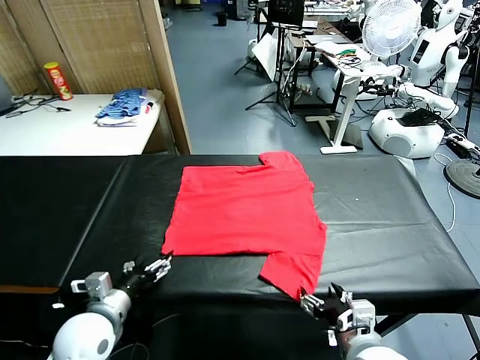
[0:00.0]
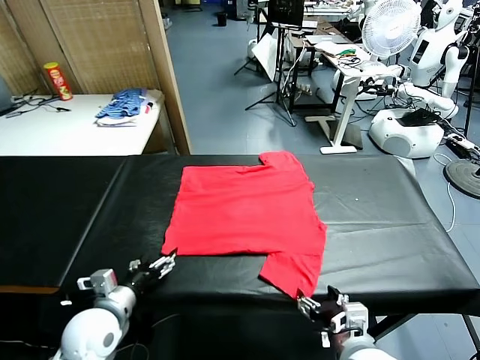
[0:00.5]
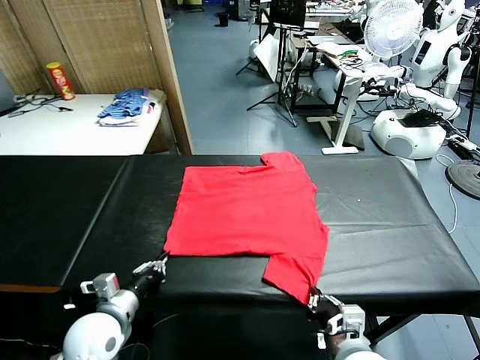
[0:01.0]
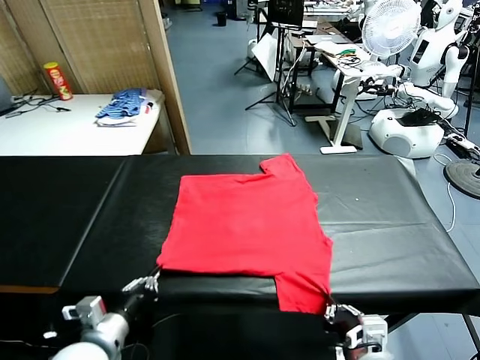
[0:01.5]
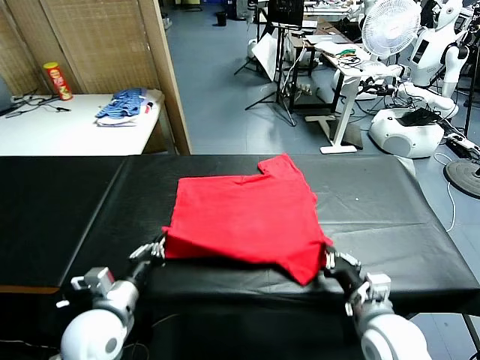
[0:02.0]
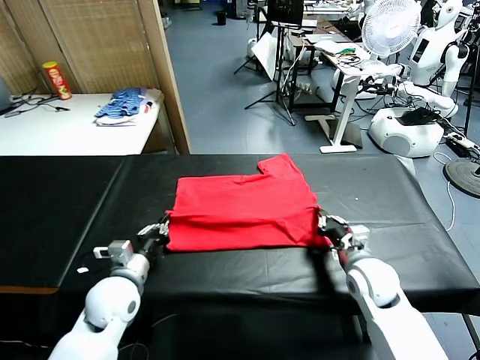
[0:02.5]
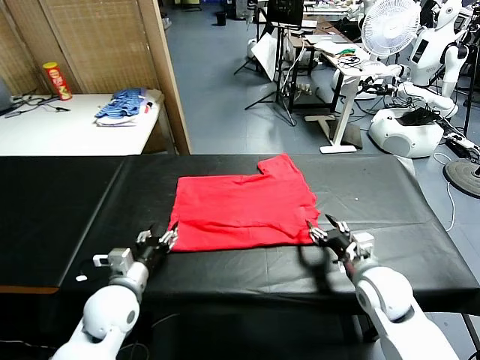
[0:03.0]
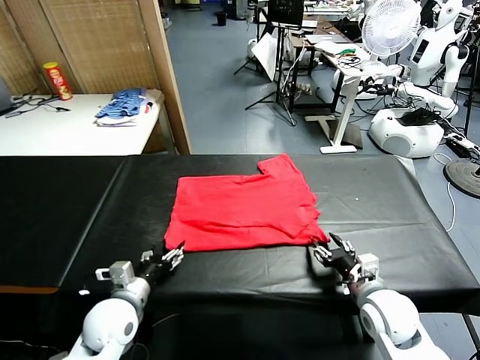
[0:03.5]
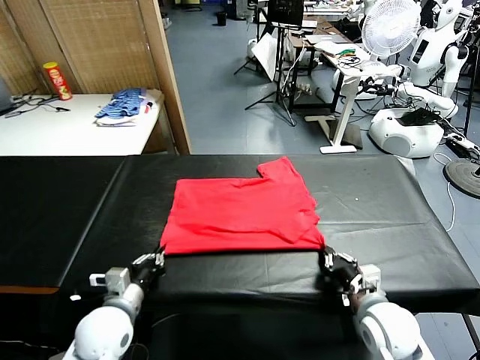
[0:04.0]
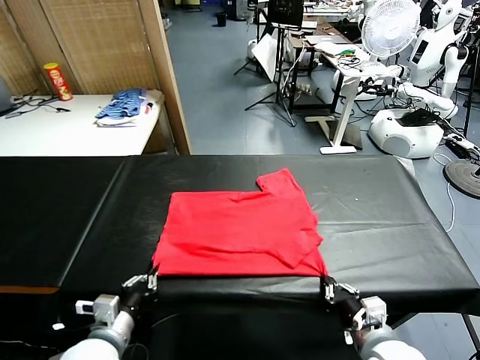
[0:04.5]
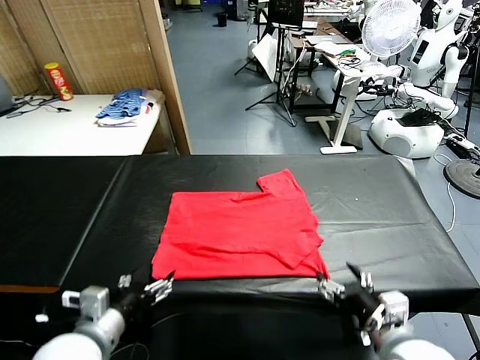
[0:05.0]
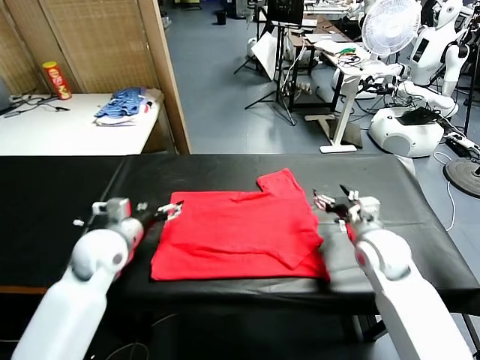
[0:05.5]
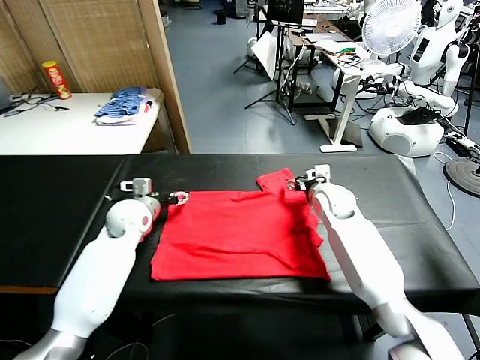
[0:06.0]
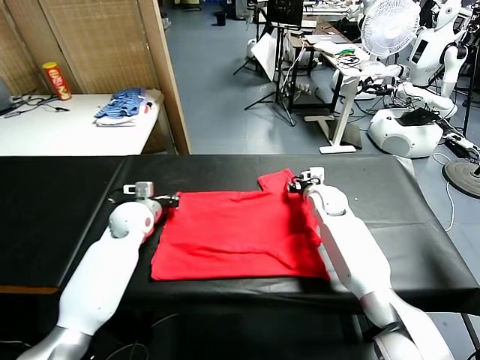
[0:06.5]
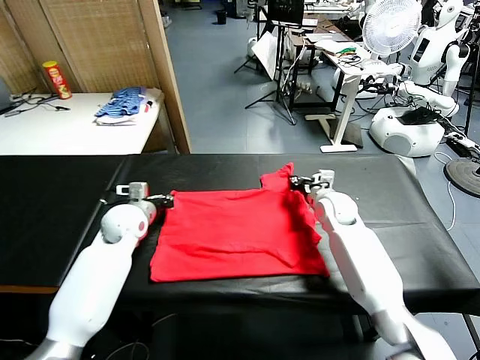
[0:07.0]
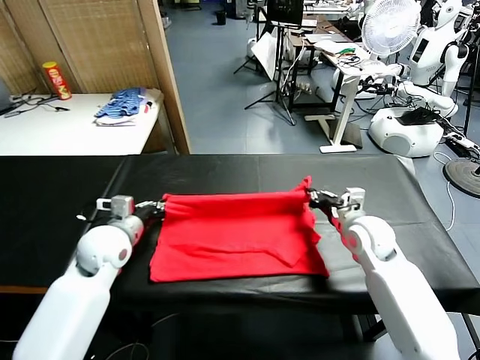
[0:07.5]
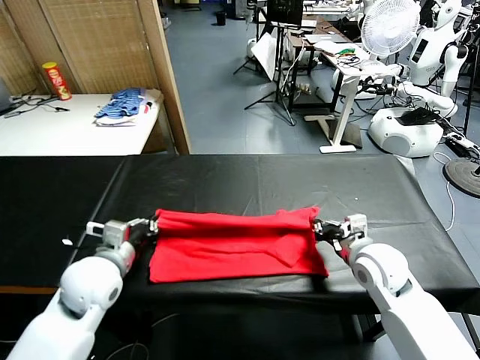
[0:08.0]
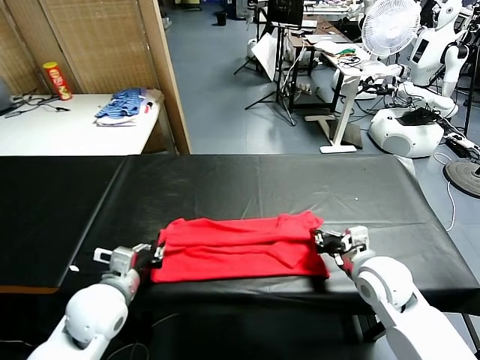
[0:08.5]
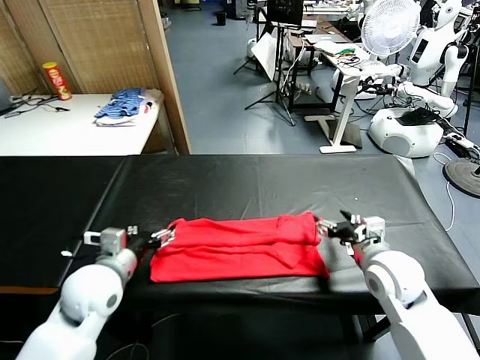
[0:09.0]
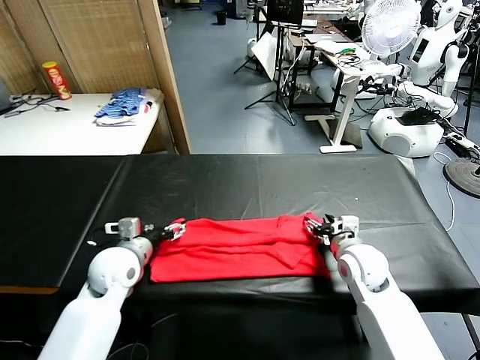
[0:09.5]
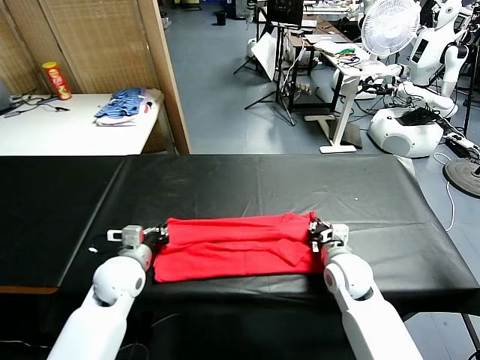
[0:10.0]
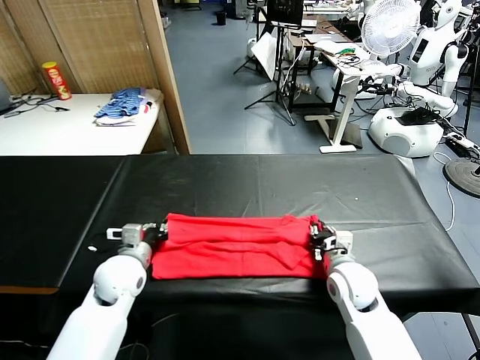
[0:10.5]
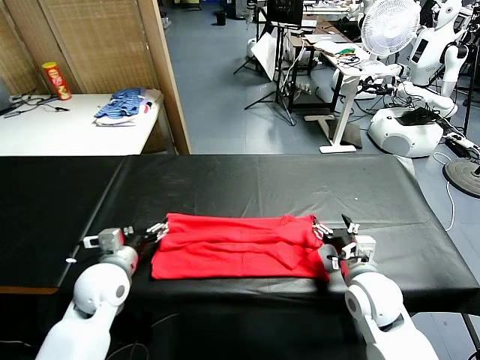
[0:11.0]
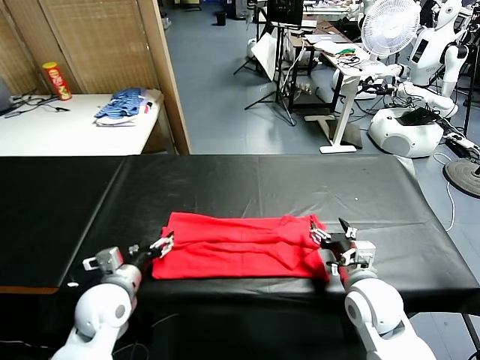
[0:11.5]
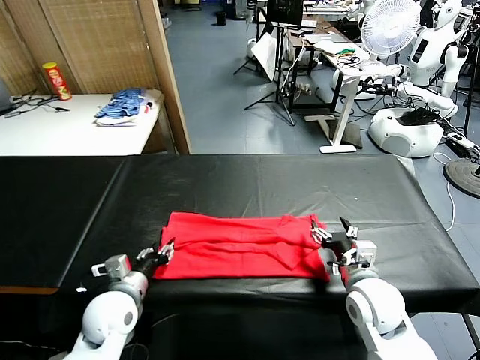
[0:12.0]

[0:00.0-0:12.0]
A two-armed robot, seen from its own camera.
Task of the whole recording: fold and organize the clothes.
Step, 0:00.0 to 0:01.5: use both grippers simultaneously to clamp the lower edge of the clothing fabric.
Step, 0:02.0 to 0:02.5: use both grippers to drag the lower edge of the fabric forward and fold it over the upper edge.
Step, 0:03.5 to 0:04.5: Drag the clothes downward with both gripper.
Step, 0:05.0 to 0:07.0: use both grippers simultaneously to clamp the upper edge of the clothing fabric.
Step, 0:07.5 to 0:08.5: use both grippers to drag the upper edge of the fabric backward and fold it over the lower edge.
0:02.0 to 0:04.0: The left gripper opens, then closes again. The right gripper is displaced backward by roughly 10 cm, and opens and closes again.
0:04.0 to 0:06.0: The two grippers go roughly 30 cm forward. The left gripper opens up. Meanwhile the right gripper opens its fingers.
0:06.0 to 0:08.0: Both grippers move backward, roughly 20 cm. The left gripper closes, while the right gripper closes.
0:08.0 to 0:10.0: Both grippers move downward, some 5 cm. The right gripper opens, then closes once more; the left gripper opens, then closes again.
0:10.0 to 0:12.0: The two grippers go roughly 5 cm backward. The left gripper opens its fingers. Meanwhile the right gripper opens its fingers.

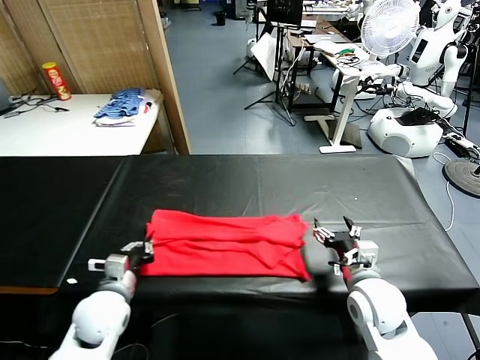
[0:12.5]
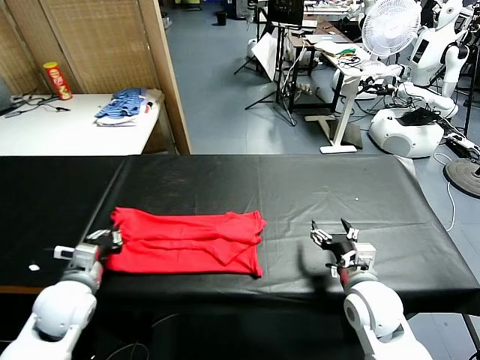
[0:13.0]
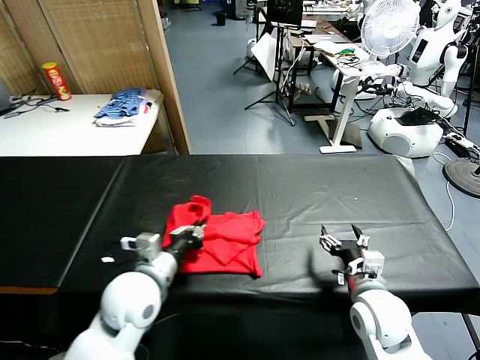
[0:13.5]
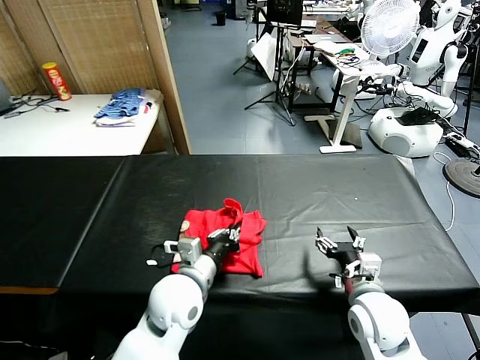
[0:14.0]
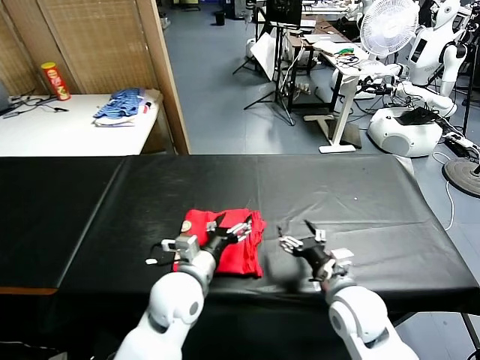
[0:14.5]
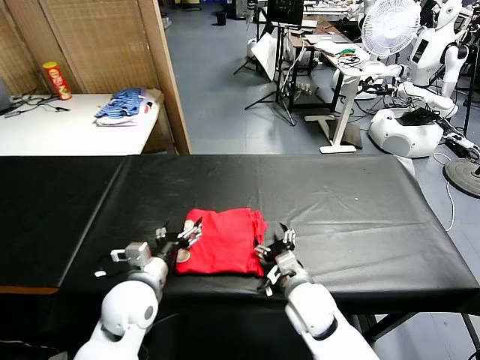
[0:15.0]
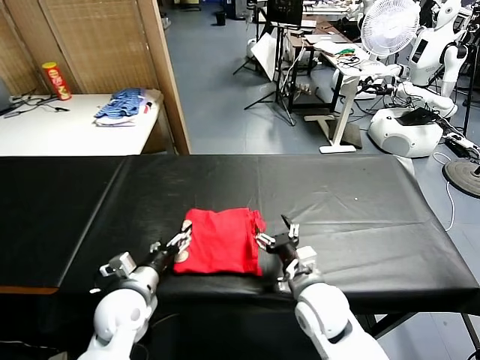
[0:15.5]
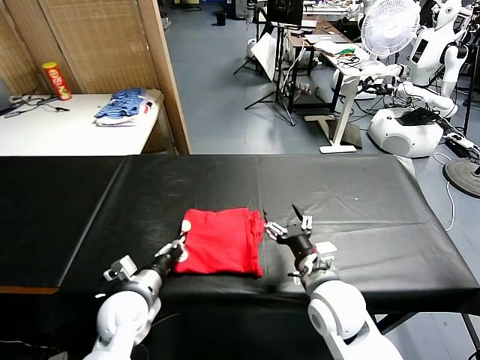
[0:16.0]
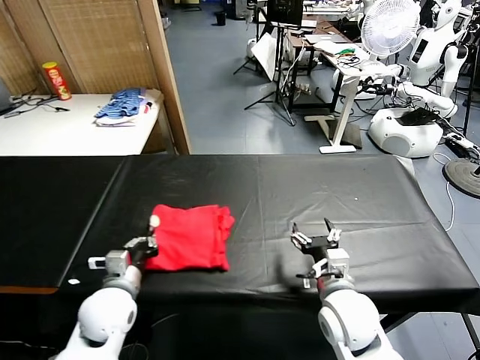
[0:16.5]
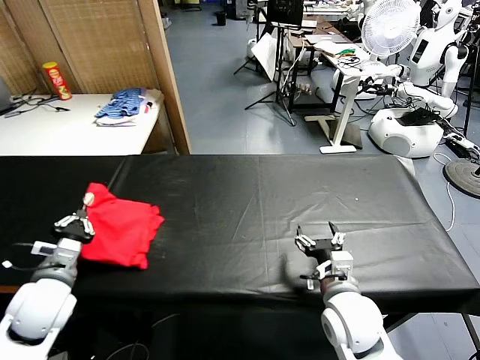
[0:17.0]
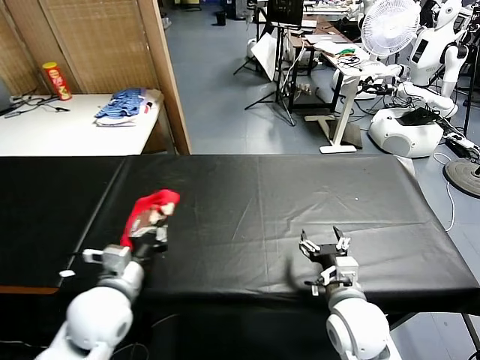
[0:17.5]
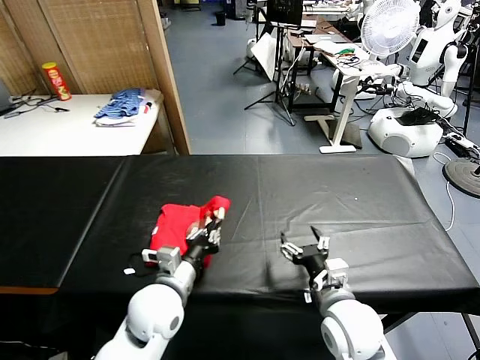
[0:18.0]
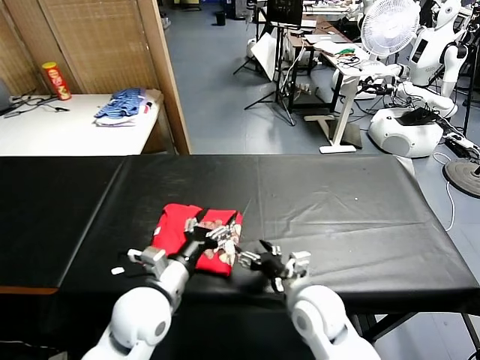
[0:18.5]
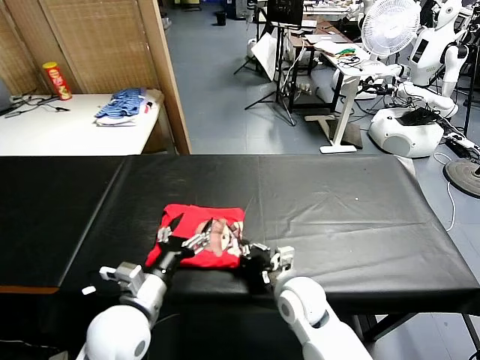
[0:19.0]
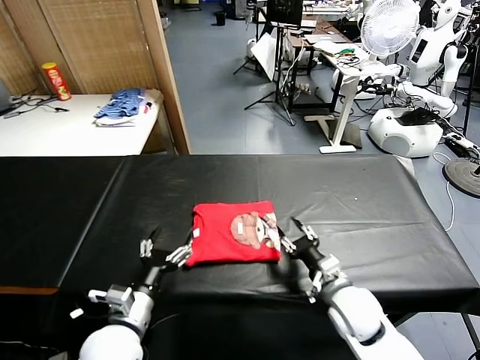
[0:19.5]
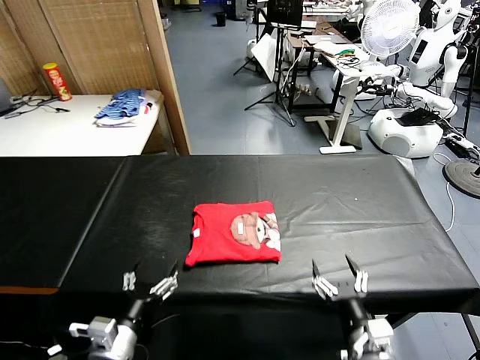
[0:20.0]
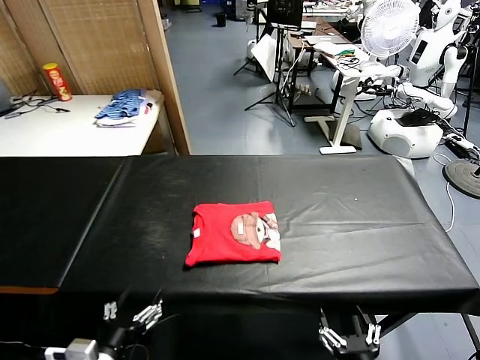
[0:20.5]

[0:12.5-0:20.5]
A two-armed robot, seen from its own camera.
Task of the whole recording: fold and organize the clothes.
Step, 0:13.0 to 0:14.0: use the left gripper to drag the left edge of the fabric to the left and folds it over the right edge.
Step, 0:14.5 to 0:18.0: Flip the folded clothes over with left gripper.
Step, 0:18.5 to 0:19.5: Drag the clothes to the center of the table.
0:12.5 to 0:14.5: The left gripper is displaced to the right by about 15 cm, and opens.
0:14.5 to 0:16.5: The left gripper goes approximately 15 cm to the left, and closes its fingers.
0:16.5 to 0:18.5: The left gripper is displaced to the right and upward by about 10 cm, and opens up.
0:18.5 to 0:20.5: The right gripper shifts roughly 20 cm backward, and closes and opens again, while the left gripper travels backward and to the left by about 20 cm.
